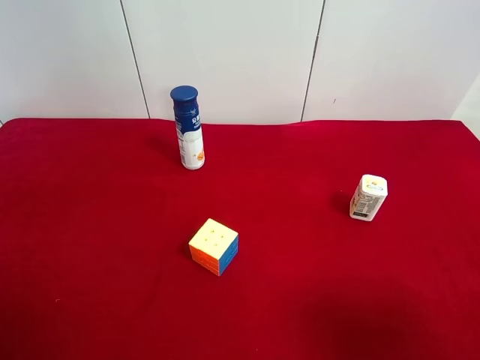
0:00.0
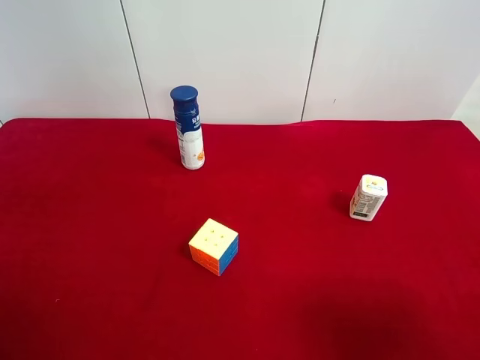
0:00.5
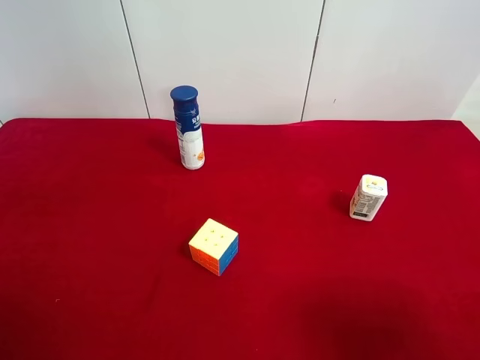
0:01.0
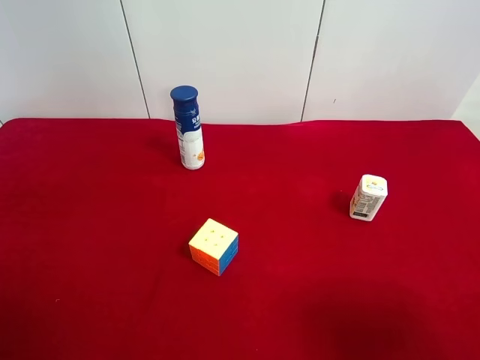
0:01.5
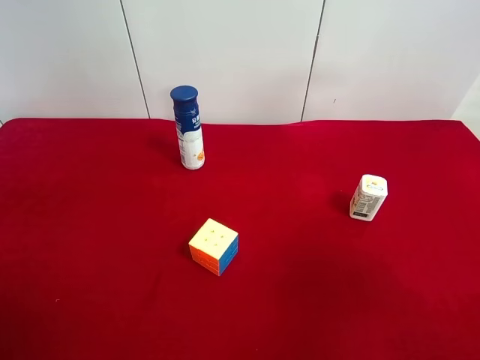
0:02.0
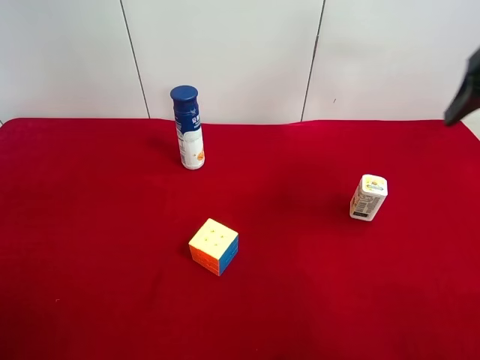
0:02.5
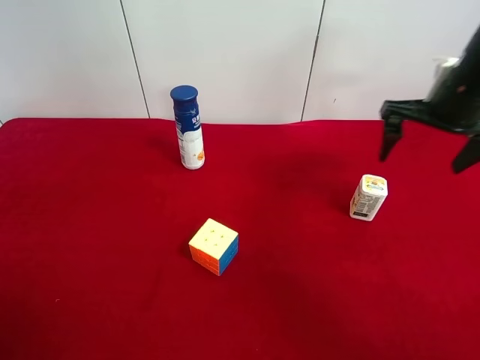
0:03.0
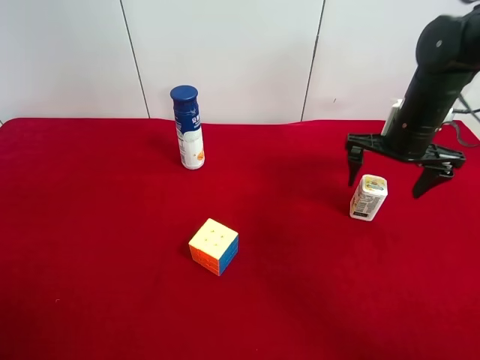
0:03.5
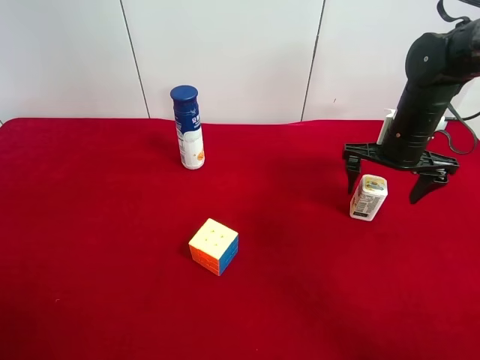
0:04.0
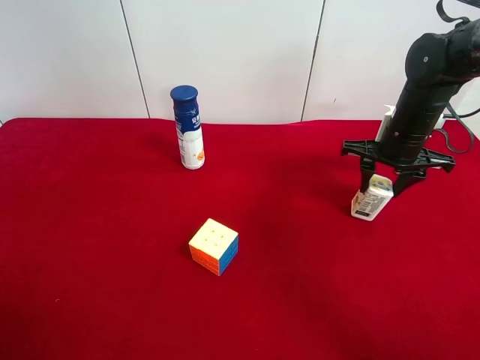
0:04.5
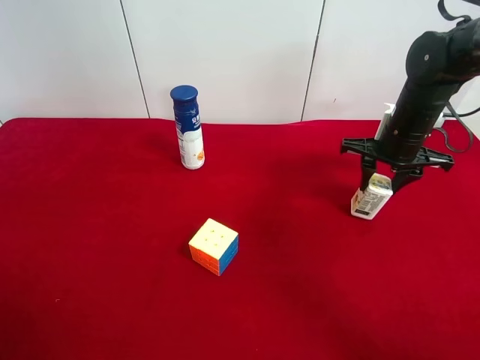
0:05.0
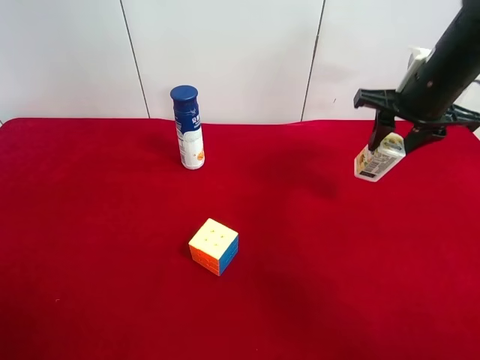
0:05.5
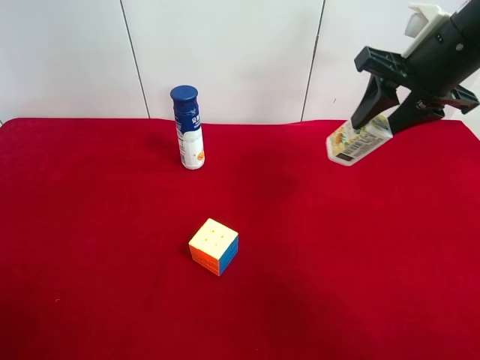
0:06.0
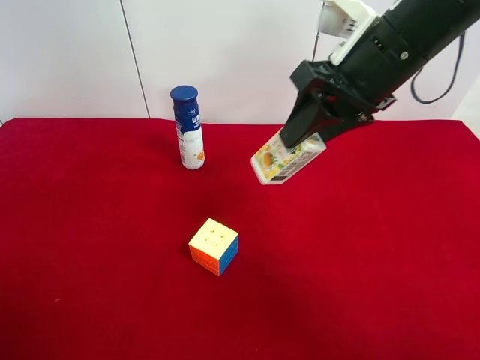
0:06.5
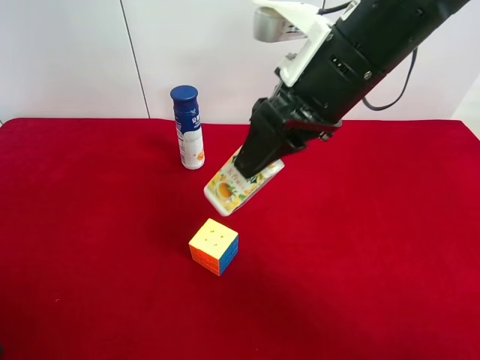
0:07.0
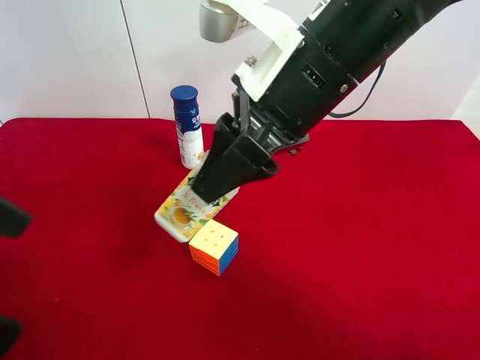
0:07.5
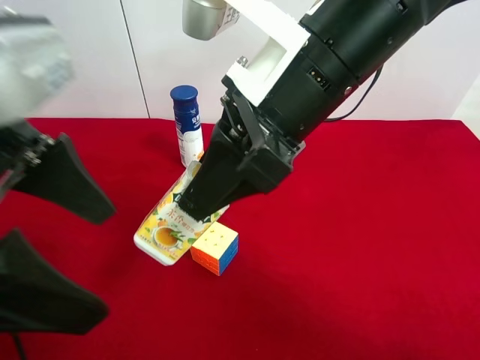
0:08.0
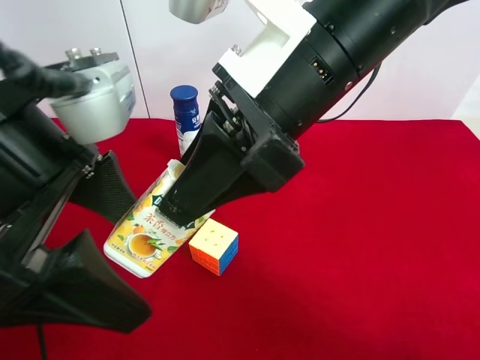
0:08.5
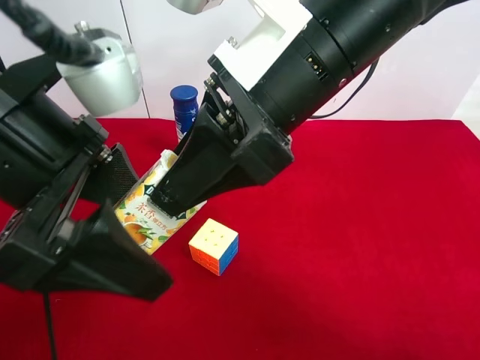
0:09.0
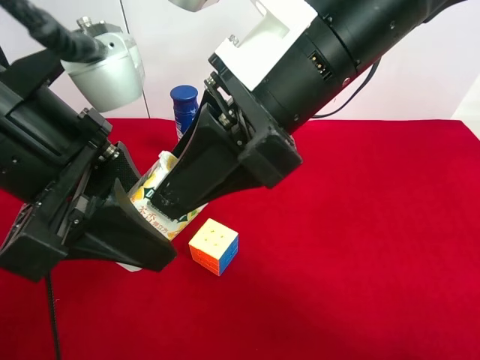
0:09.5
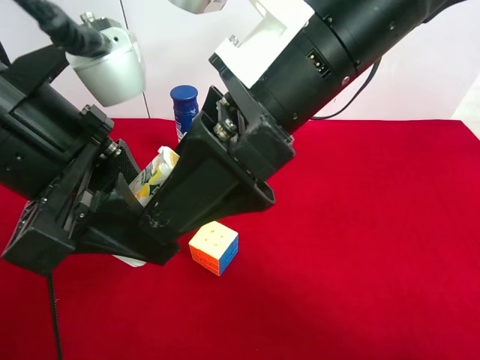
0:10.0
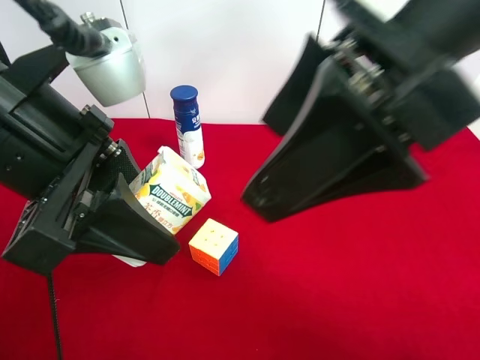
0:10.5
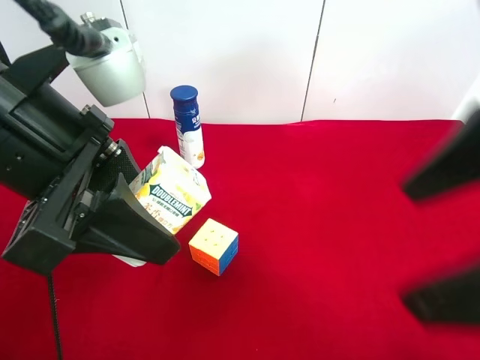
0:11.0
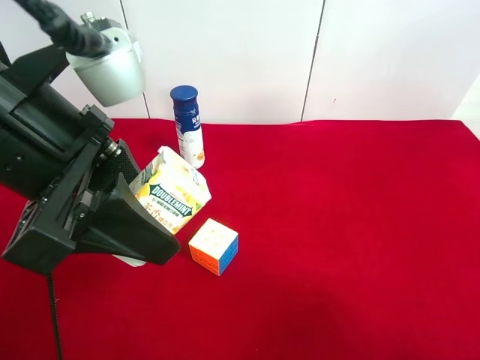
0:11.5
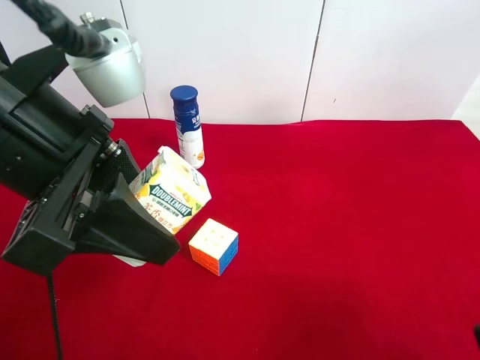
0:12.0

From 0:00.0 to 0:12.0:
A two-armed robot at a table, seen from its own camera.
Task of the whole recording: use the right gripper to pick up the item and transfer it from the right gripper to the left gripper.
Step, from 0:00.0 to 0:04.5: Use the right gripper to grab the square chewing gum on the right side of the table.
Step, from 0:05.0 to 0:10.0: Pass the square chewing gum to the left gripper.
From 0:02.0 to 0:04.0: The right gripper goes about 35 cm forward and downward.
From 0:04.0 to 0:06.0: The right gripper travels upward by some 15 cm, and closes its fingers.
From 0:06.0 to 0:08.0: The left gripper heads to the right and forward, covering approximately 20 cm; the right gripper is displaced to the left and backward by about 20 cm.
From 0:08.0 to 0:10.0: The left gripper closes, while the right gripper opens up.
From 0:10.0 to 0:12.0: The right gripper goes roughly 30 cm to the right and backward.

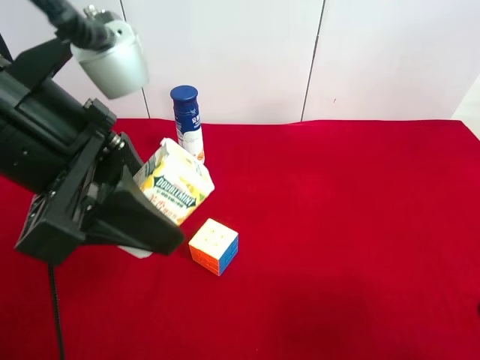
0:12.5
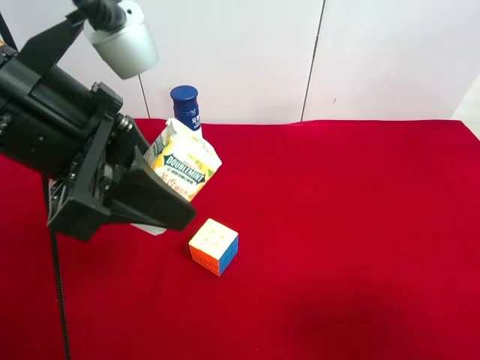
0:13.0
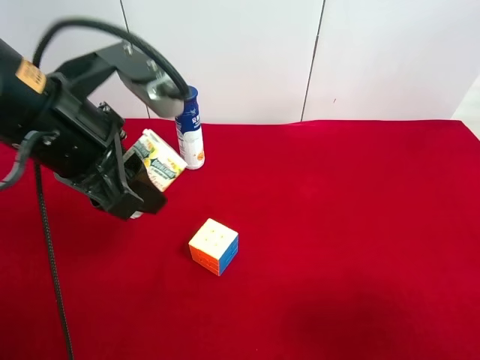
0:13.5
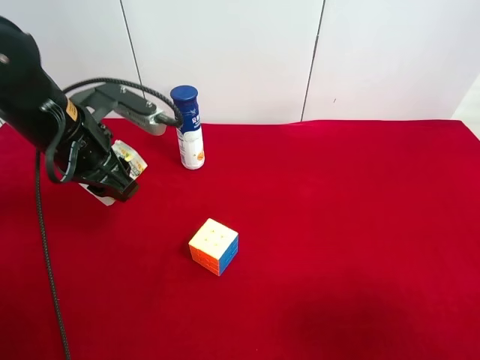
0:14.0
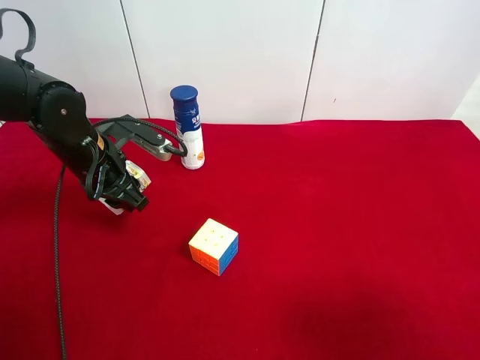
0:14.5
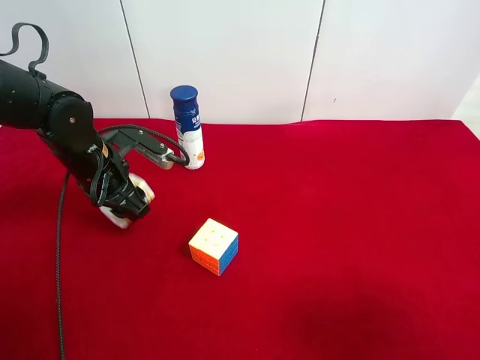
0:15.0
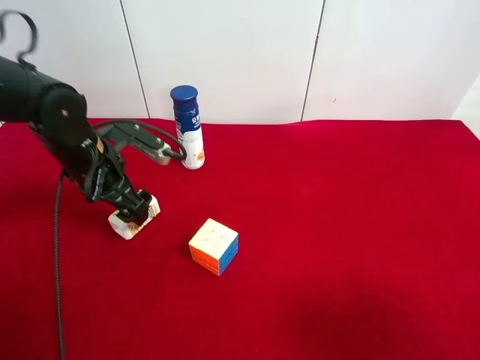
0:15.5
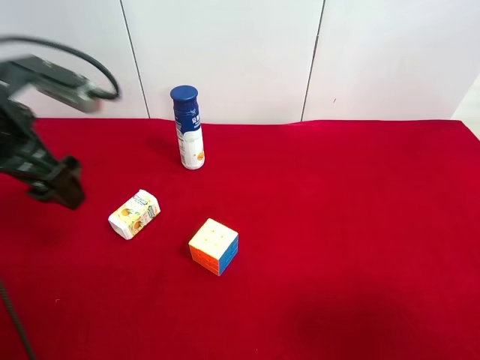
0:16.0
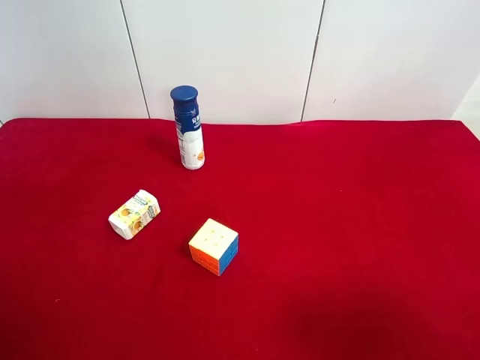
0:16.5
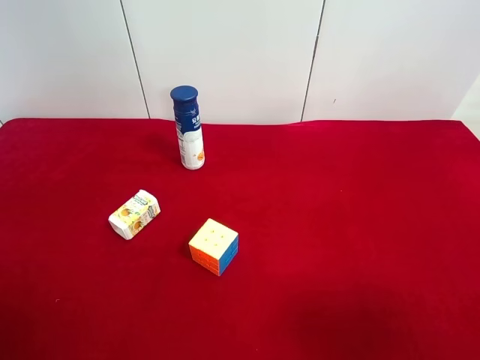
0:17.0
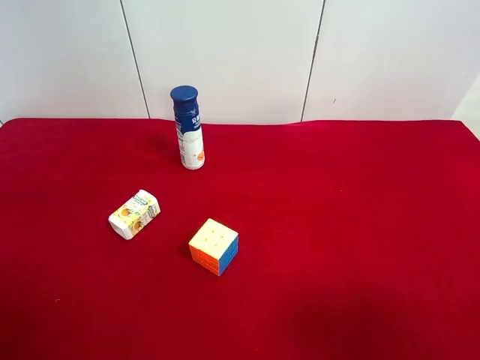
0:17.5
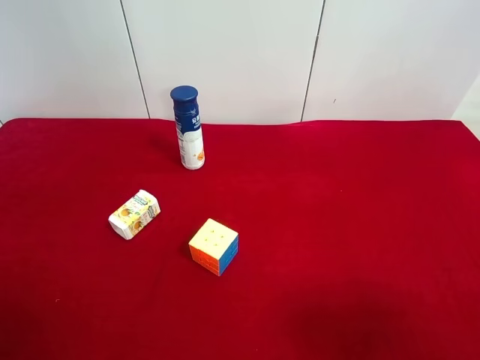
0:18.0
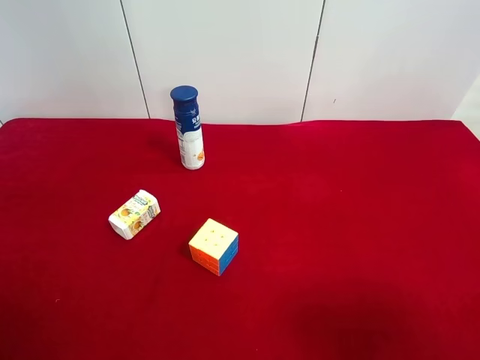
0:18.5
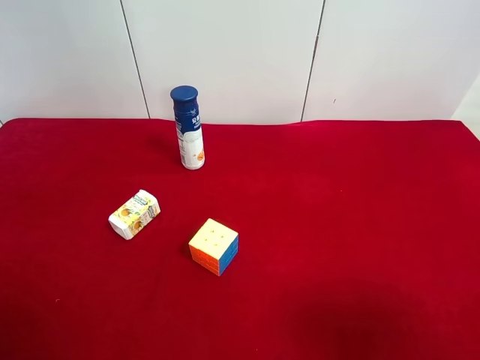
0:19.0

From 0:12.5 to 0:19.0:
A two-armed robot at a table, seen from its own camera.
Task of the whole recording: use the right gripper to pick up the item and transfer it from the right gripper to the left gripper.
Step, from 0:12.5 to 0:15.0: The left gripper places square chewing gum on the left side of the table.
From 0:12.5 to 0:14.5: The left gripper moves downward and forward, some 20 cm.
From 0:14.5 to 0:17.0: The left gripper is displaced backward and upward by some 35 cm, and opens its fingers.

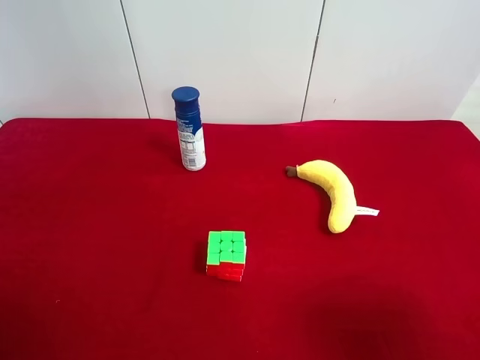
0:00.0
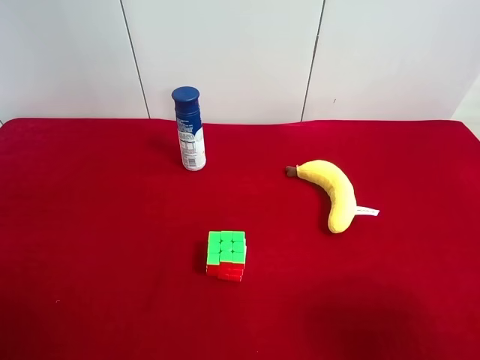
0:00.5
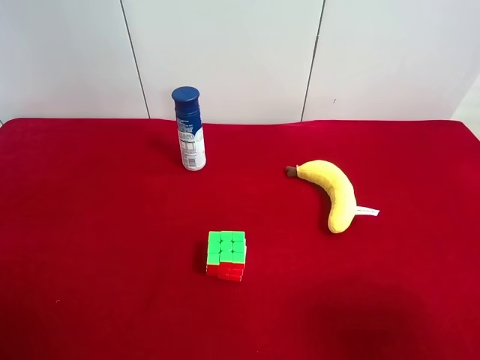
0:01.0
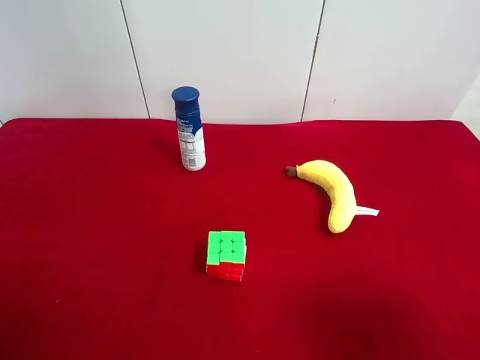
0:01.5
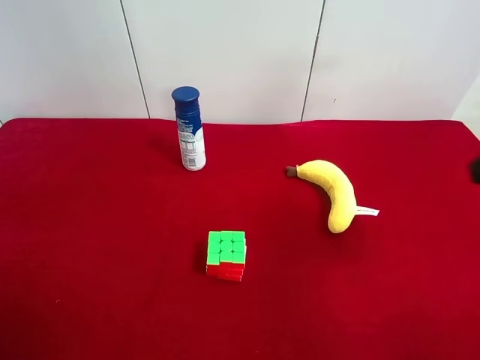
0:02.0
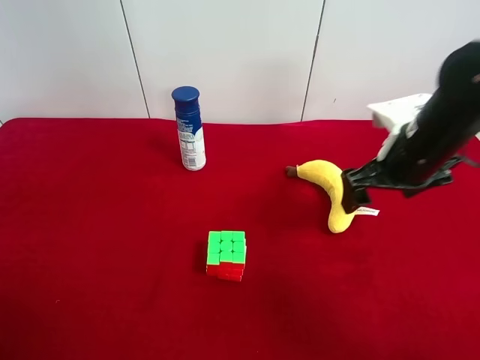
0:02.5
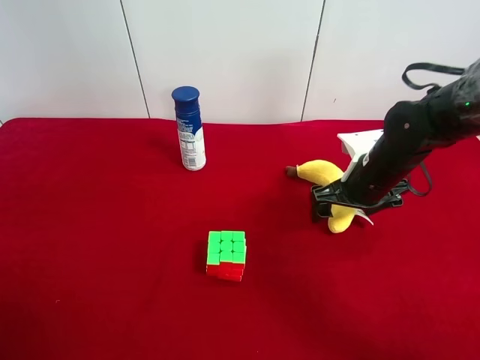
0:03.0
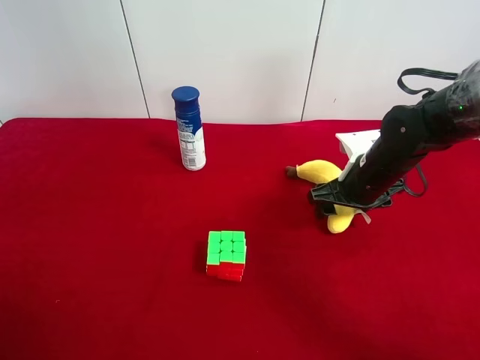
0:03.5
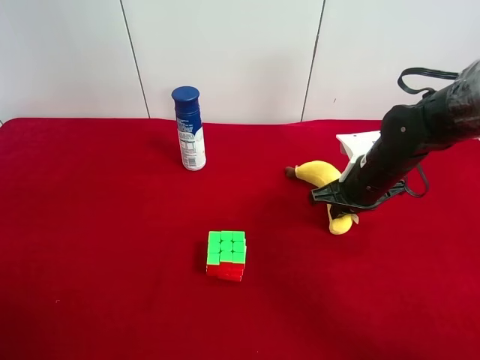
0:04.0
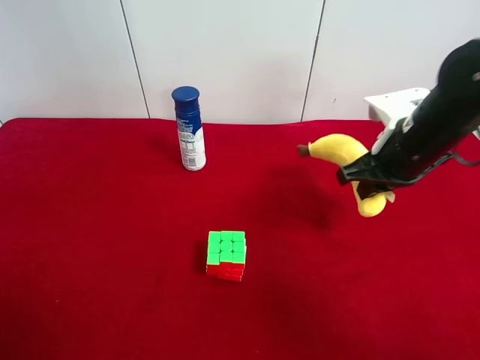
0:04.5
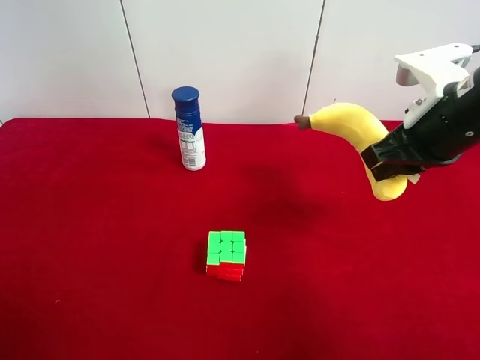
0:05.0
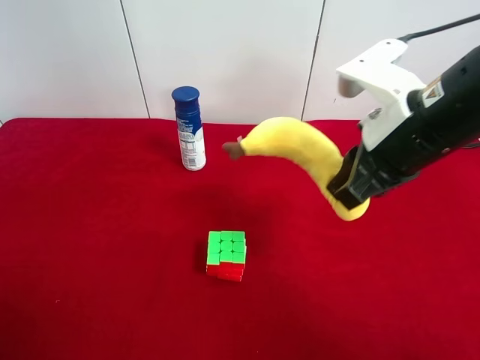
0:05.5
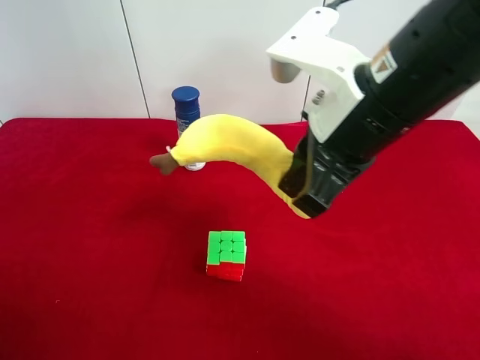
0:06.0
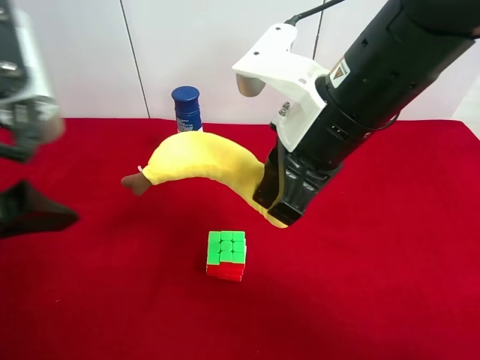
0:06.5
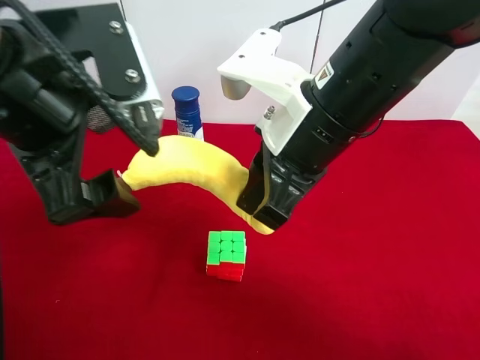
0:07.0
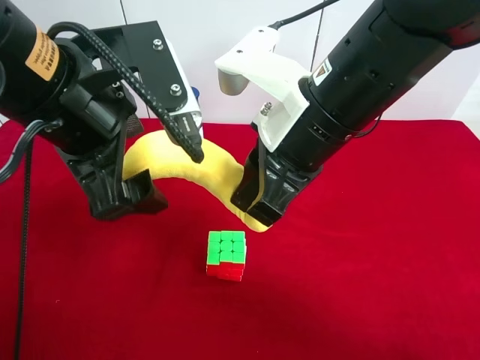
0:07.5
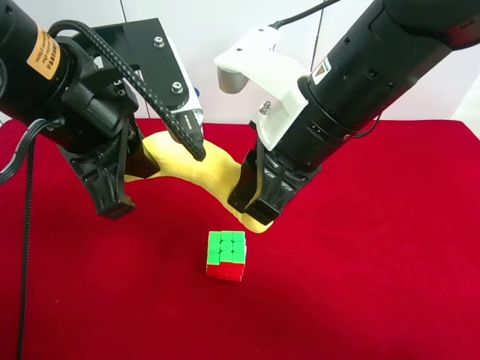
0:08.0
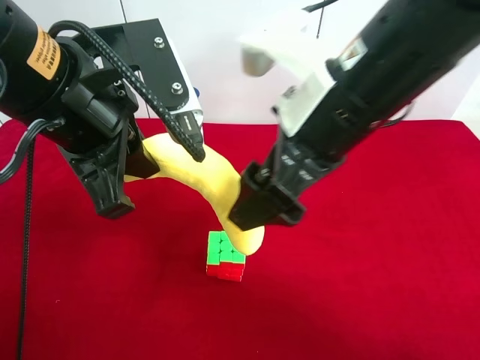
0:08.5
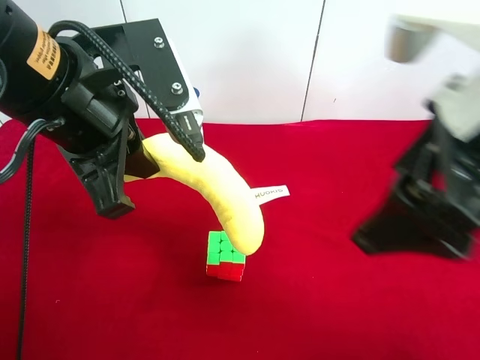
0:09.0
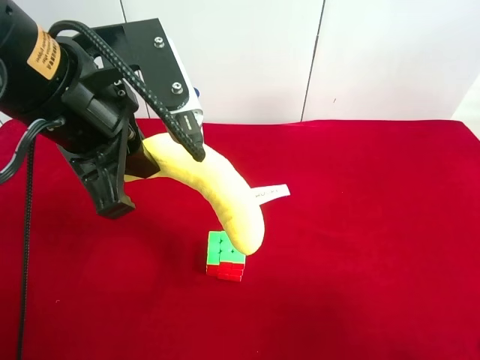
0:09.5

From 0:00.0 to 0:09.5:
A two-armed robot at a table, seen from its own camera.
Task of the whole recording: use the right gripper to pick up the item and transfer it from the right gripper to the left gripper.
Step, from 0:00.0 to 0:03.5: Use the right gripper to grab the plush banana on the right side of the table.
Step, from 0:04.0 to 0:08.0: Pass the plush banana to the left gripper.
From 0:02.0 to 0:04.0: The right gripper heads downward and forward, covering roughly 25 cm, and closes.
From 0:04.0 to 0:05.5: The right gripper goes some 20 cm upward and backward.
From 0:05.5 to 0:07.5: The left gripper shifts approximately 25 cm to the right and forward. Meanwhile the right gripper heads to the left, covering roughly 10 cm.
From 0:07.5 to 0:09.5: The right gripper is displaced to the right and backward by about 25 cm, and opens its fingers; the left gripper closes.
